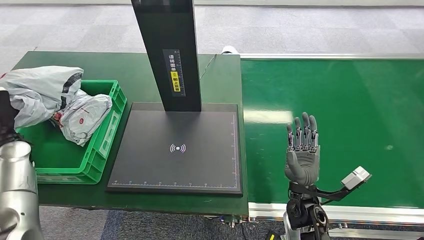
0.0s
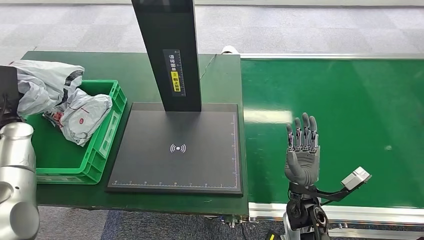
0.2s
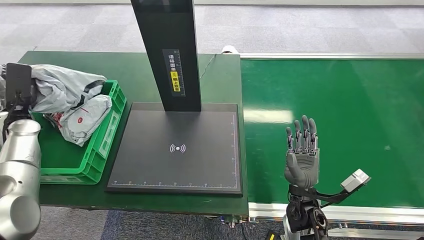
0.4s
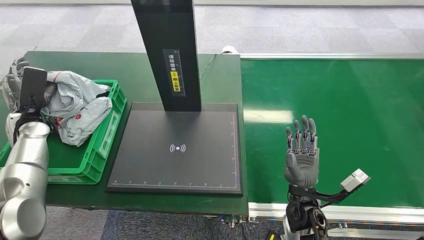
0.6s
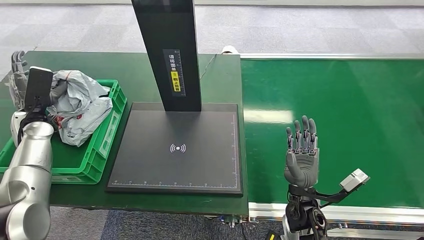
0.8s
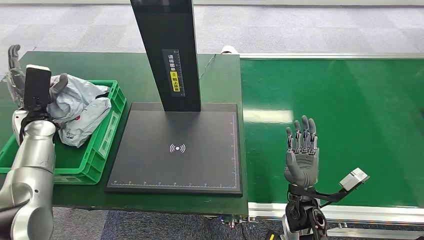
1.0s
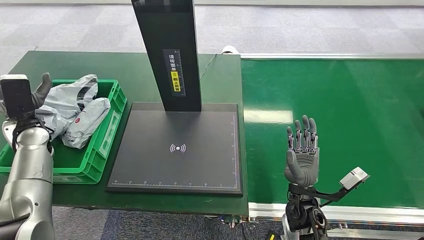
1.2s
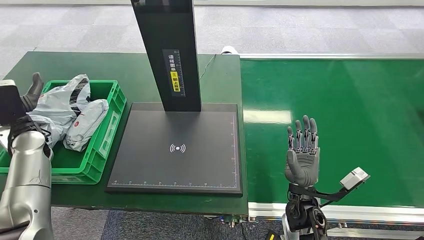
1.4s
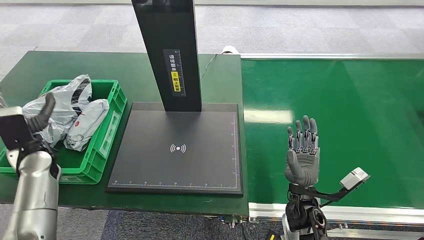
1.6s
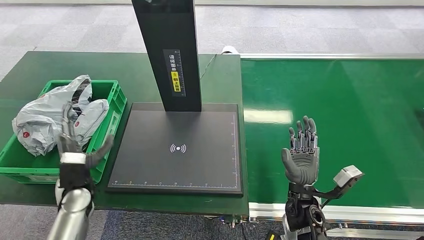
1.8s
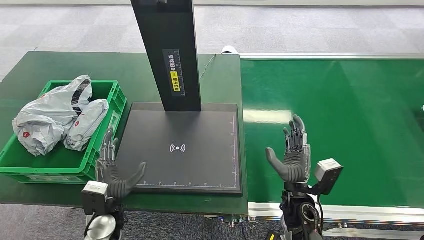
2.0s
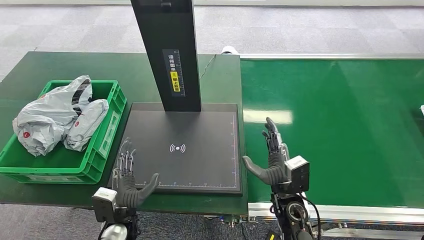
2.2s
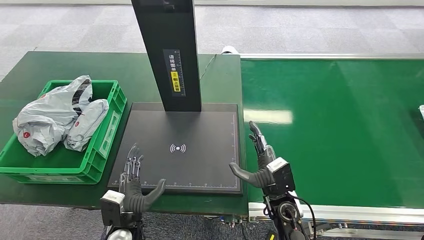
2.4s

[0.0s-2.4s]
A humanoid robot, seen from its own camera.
Step, 2.2s to 2.4s: Place the package into the parcel locker.
0.0s to 1.2s: The left hand changes place by about 5 cm.
1.2s to 2.4s: The left hand travels to the right, backward and downward by approximately 35 cm.
